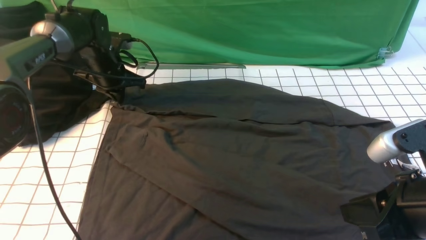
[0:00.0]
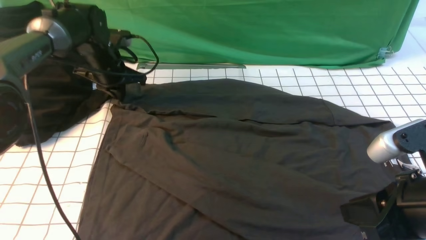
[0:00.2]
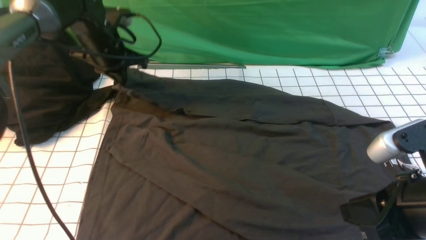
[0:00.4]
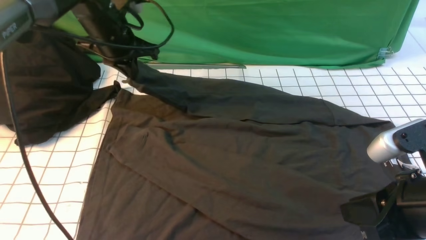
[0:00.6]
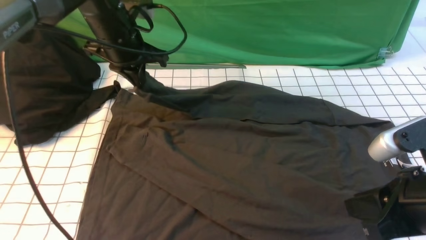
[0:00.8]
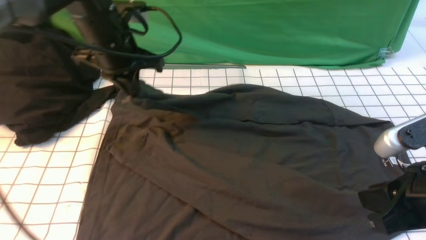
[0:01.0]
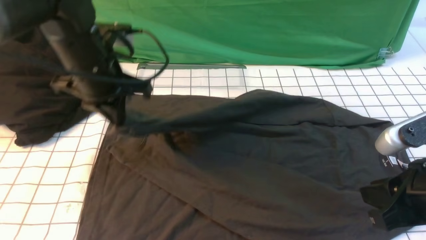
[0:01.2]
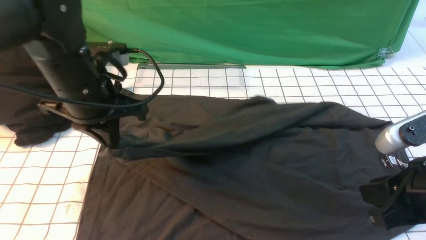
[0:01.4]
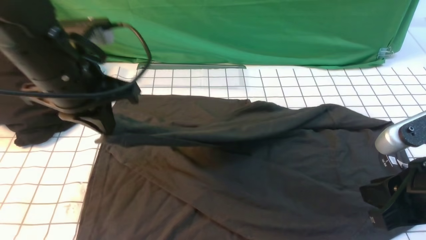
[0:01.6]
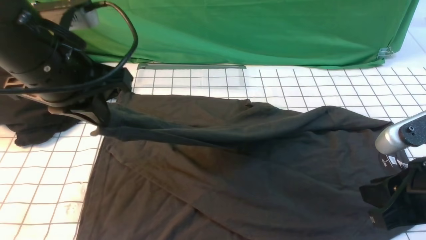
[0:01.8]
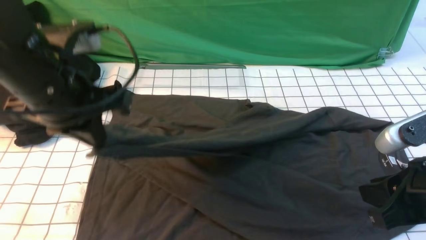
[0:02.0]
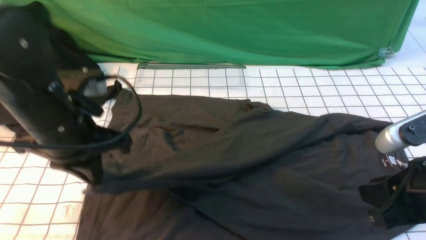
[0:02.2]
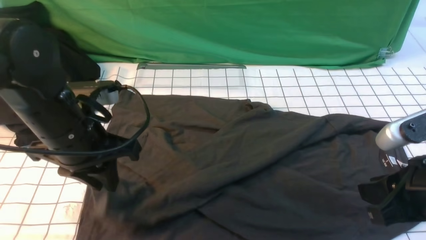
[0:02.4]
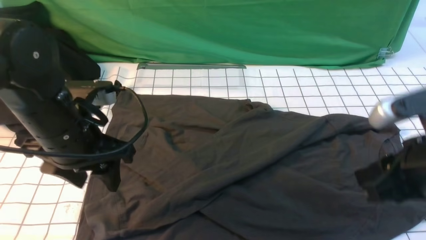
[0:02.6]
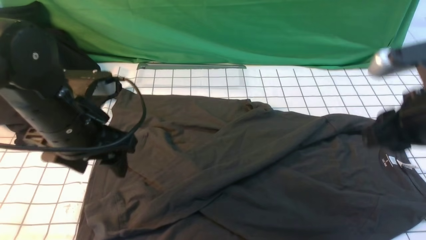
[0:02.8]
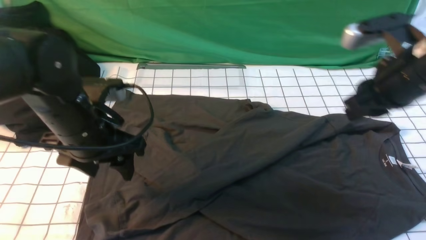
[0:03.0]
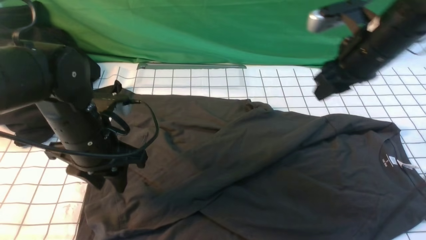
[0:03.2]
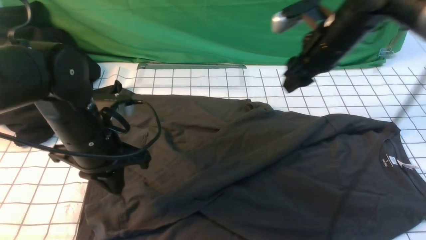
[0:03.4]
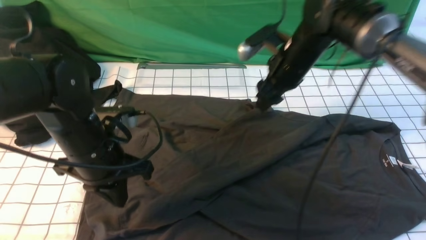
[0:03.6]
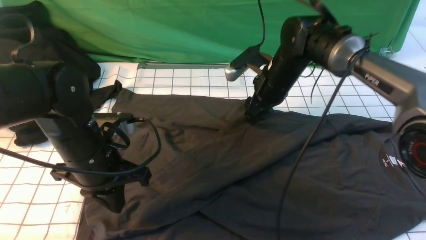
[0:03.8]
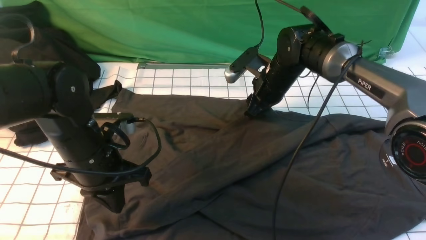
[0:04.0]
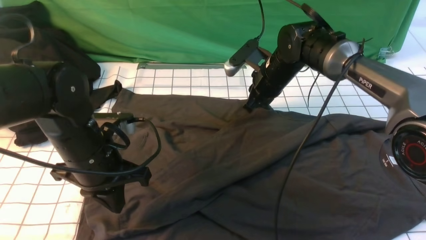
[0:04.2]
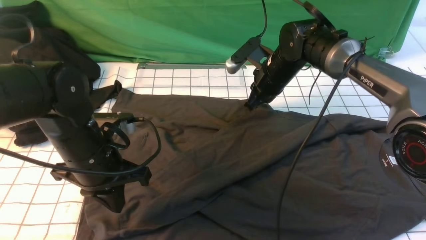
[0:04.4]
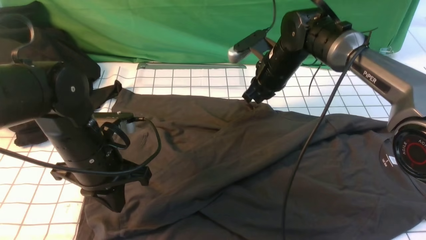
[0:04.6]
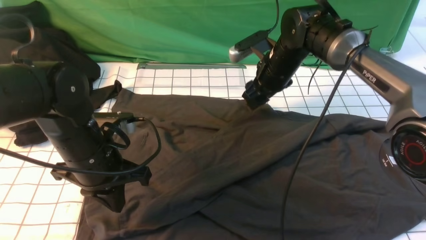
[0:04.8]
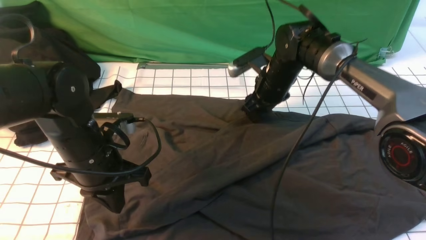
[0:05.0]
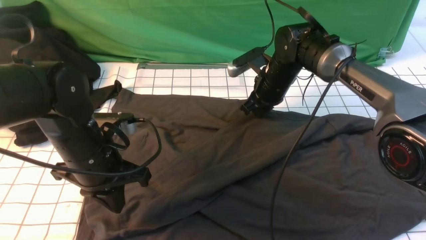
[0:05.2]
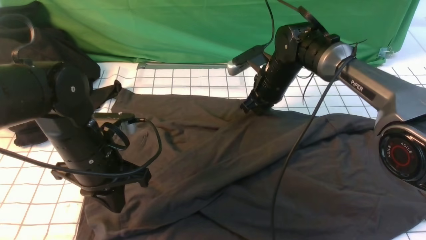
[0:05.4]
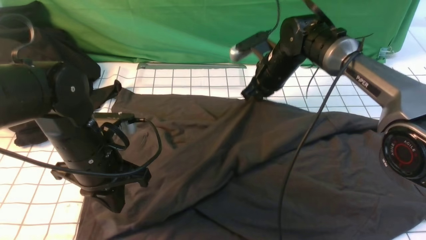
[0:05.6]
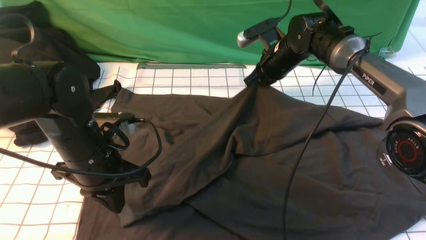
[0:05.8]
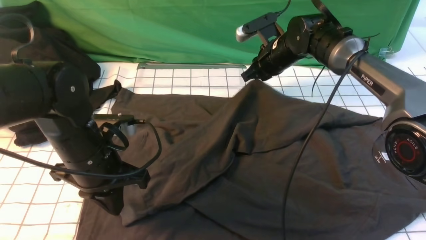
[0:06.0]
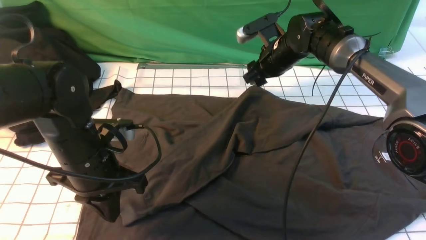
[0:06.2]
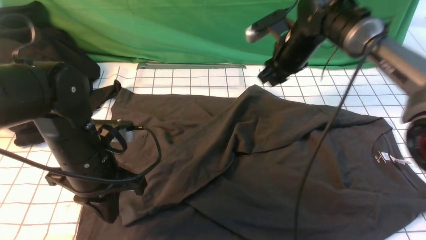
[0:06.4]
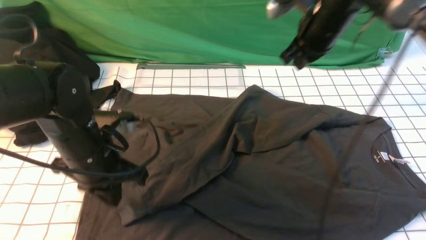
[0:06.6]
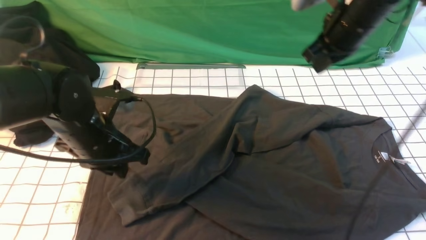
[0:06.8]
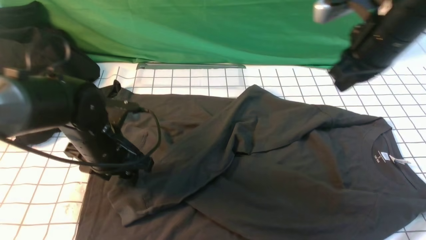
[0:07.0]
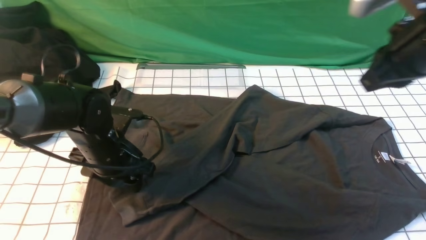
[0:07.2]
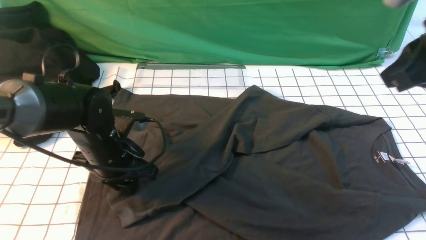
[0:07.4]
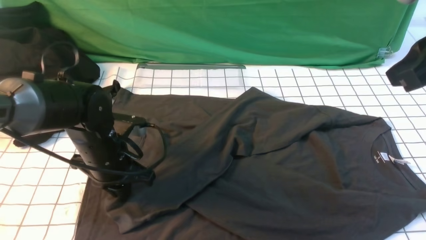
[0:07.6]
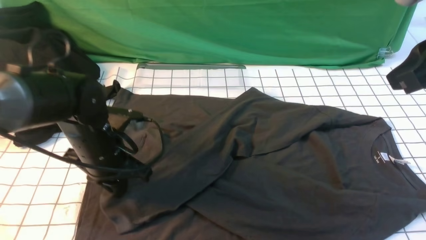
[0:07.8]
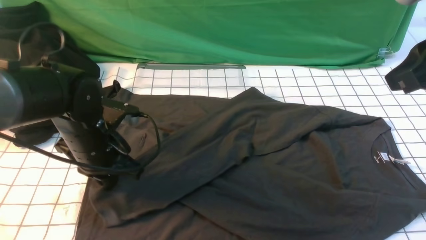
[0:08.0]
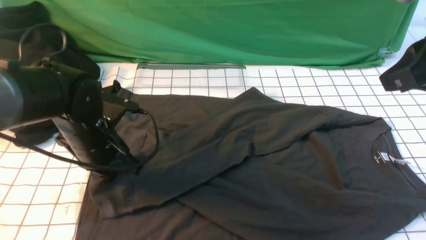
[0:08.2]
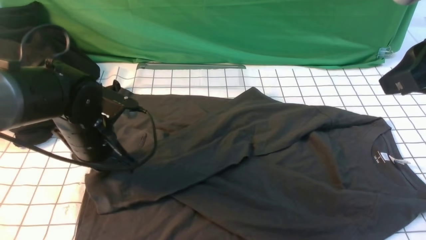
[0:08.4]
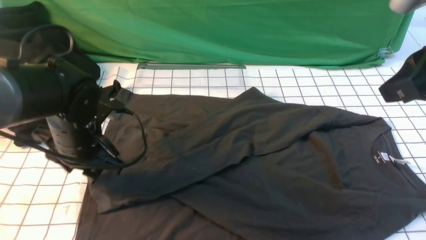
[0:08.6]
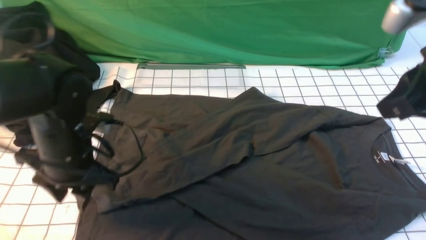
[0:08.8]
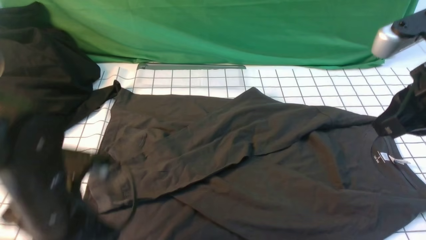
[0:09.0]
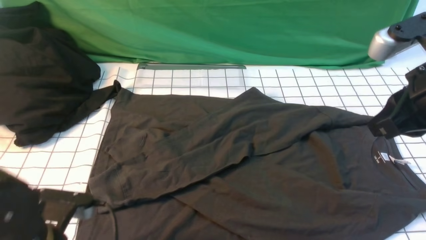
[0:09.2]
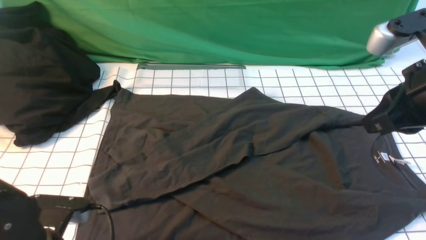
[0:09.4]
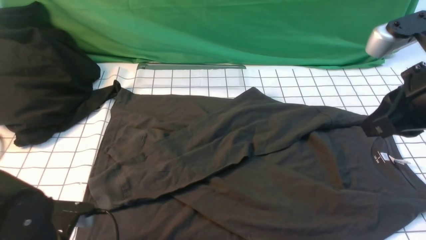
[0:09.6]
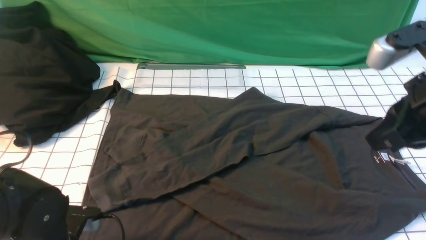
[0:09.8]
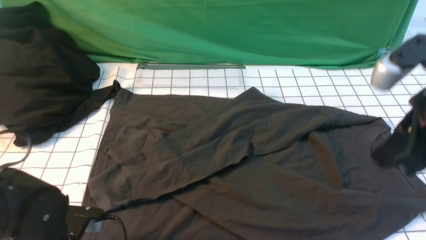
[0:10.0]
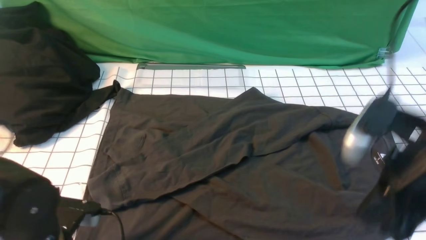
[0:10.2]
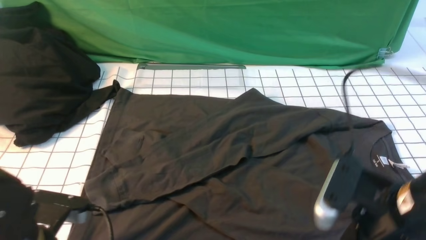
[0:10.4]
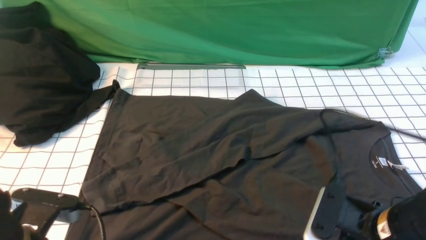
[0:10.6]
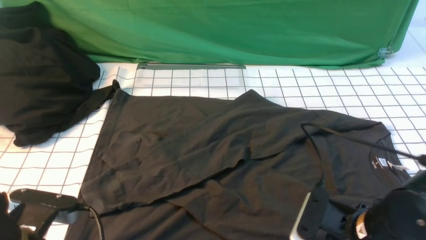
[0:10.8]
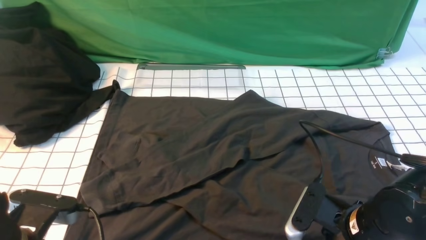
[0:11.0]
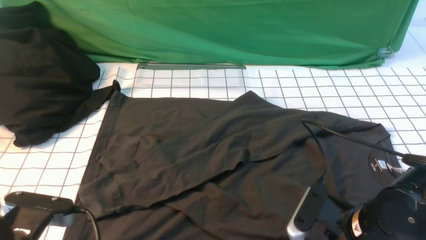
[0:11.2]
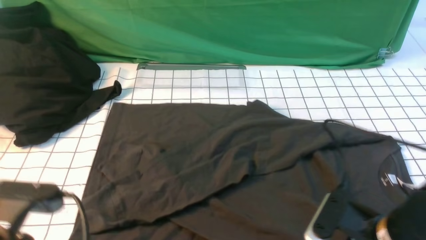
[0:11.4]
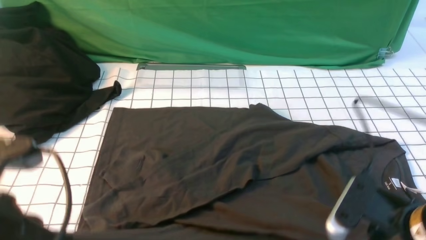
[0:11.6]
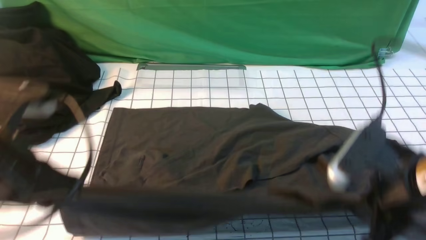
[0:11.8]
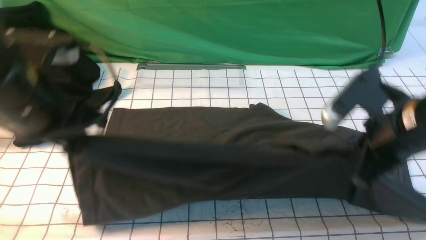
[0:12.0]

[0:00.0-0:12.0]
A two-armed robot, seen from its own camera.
Step, 0.6 to 8.4 s: use the left arm to drag and drop the cuff onto the cuff closest to the left arm.
Step, 8.6 to 11.0 s: use both arms simultaneously to clamp the lower edge of the clothing fabric.
0.0 to 1.6 s: The left gripper heads backward and upward, covering about 25 cm.
1.6 to 3.0 s: The left gripper moves downward, about 10 cm, and opens up; the right gripper is displaced forward by some 15 cm.
3.0 to 4.4 s: The left gripper closes its fingers. Meanwhile the right gripper goes roughly 25 cm forward, downward and to the left, and opens, then closes again.
4.4 to 6.0 s: The grippers move only a little.
6.0 to 7.6 s: The left gripper moves approximately 5 cm, and opens, then closes once more; the right gripper is displaced backward, upward and to the right by some 35 cm, and closes.
7.6 to 9.0 s: The left gripper shifts about 10 cm backward, and opens and closes again.
9.0 to 10.4 s: The right gripper heads downward and backward, covering approximately 15 cm, and opens its fingers. The left gripper heads backward, covering about 5 cm, and opens, then closes once more.
10.4 to 12.0 s: The left gripper moves upward and forward, approximately 20 cm. Meanwhile the right gripper travels forward and upward by some 10 cm, and closes up.

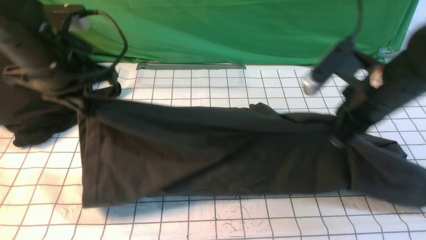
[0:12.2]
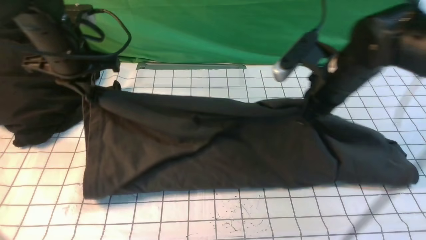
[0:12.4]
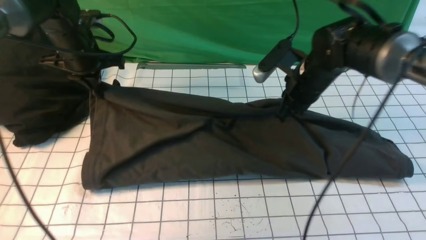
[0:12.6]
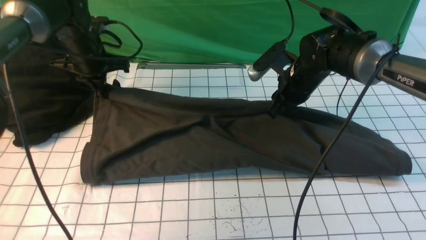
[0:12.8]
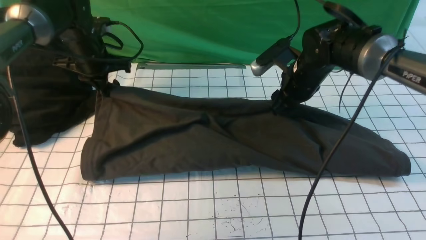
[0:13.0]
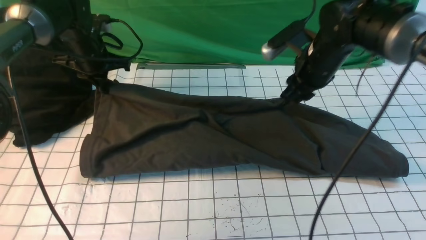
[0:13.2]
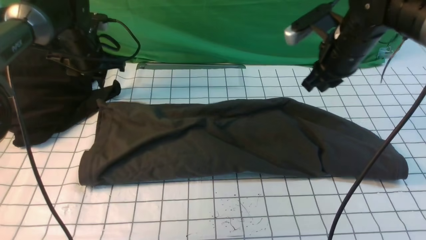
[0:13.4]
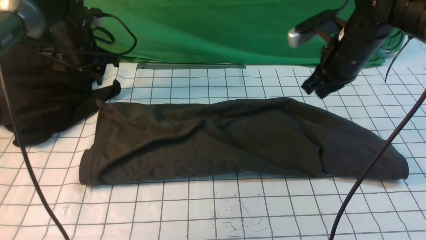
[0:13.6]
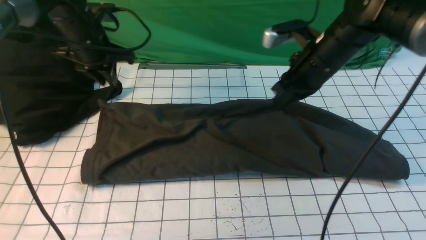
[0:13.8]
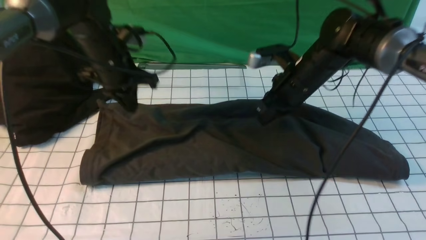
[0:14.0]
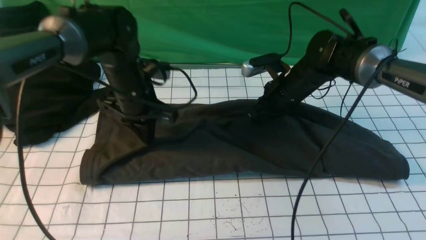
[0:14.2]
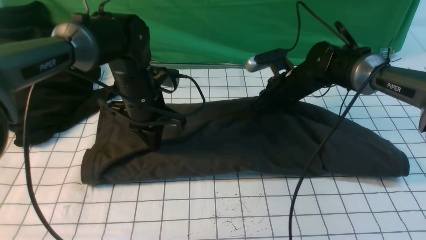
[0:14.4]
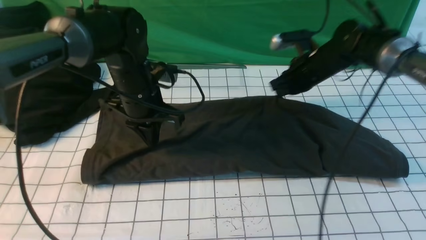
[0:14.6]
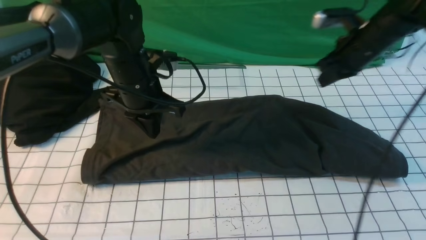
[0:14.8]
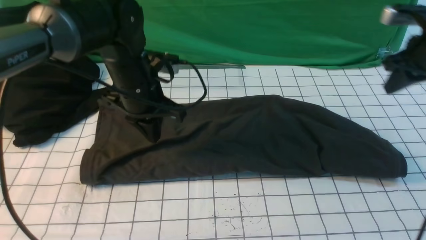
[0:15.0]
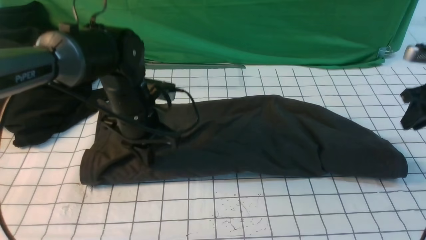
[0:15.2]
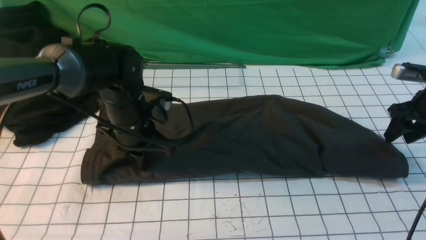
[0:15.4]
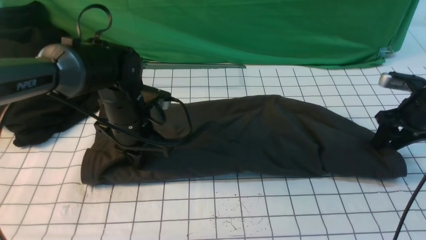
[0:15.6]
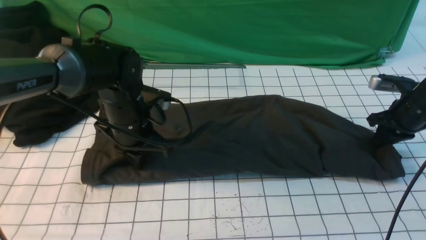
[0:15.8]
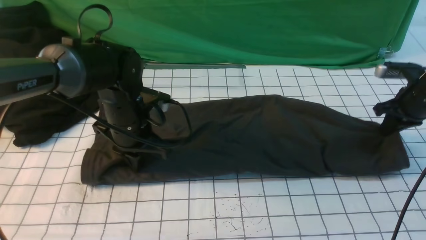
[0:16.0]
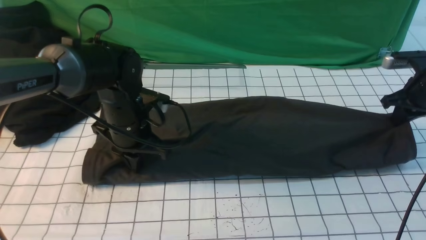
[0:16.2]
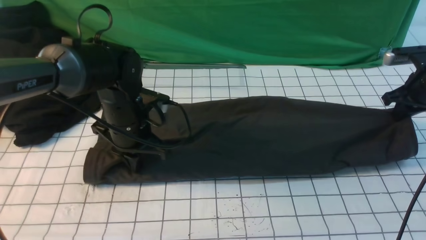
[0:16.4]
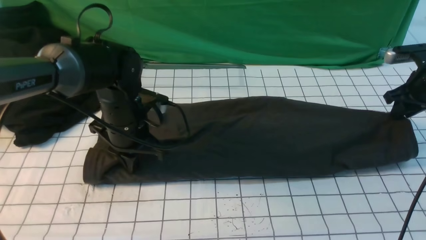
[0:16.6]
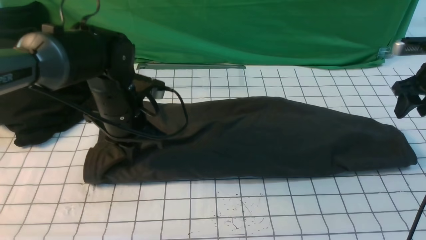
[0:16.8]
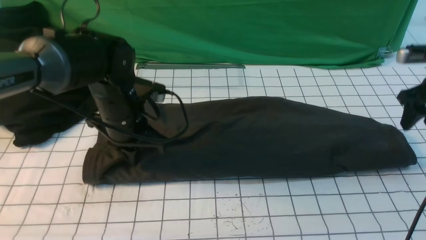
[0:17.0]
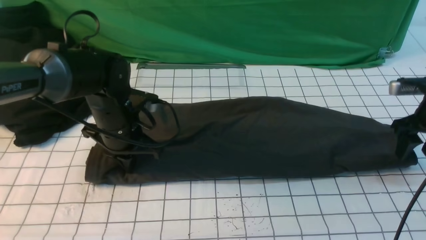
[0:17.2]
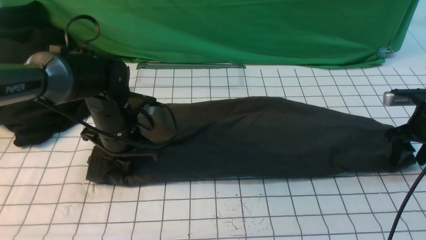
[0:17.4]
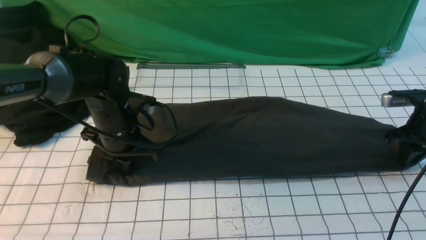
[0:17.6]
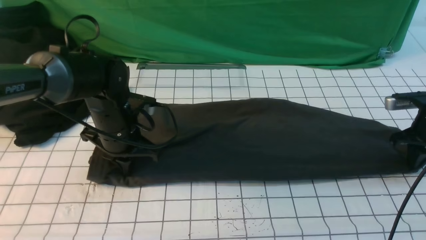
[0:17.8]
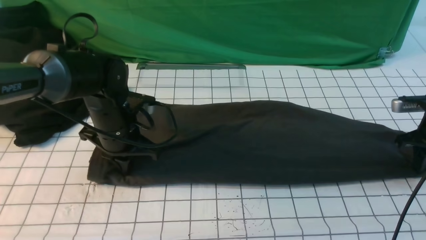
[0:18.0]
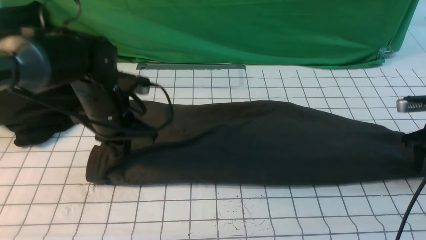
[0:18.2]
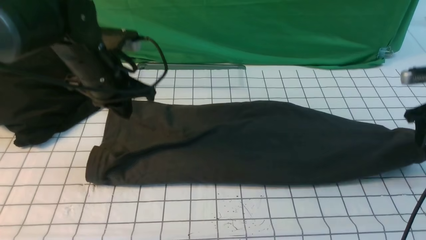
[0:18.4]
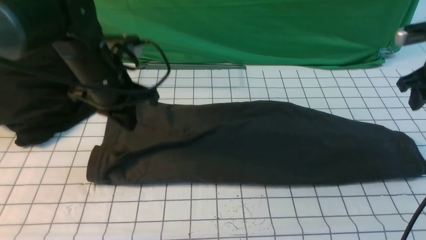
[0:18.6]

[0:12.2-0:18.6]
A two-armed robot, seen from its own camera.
12.2 to 13.8 s: The left gripper travels forward and downward by some 15 cm, while the right gripper is displaced forward by some 10 cm, and opens and closes again.
13.8 to 15.4 s: The right gripper goes about 20 cm to the right, and opens, while the left gripper heads backward, to the right and downward, covering roughly 15 cm.
15.4 to 17.0 s: The right gripper closes and opens again.
17.0 to 18.6 s: The left gripper shifts by about 5 cm. The right gripper goes some 5 cm upward, and closes and opens again.
